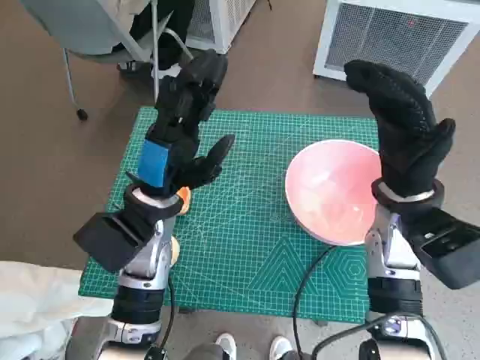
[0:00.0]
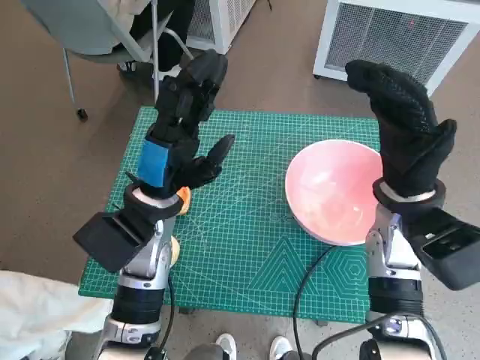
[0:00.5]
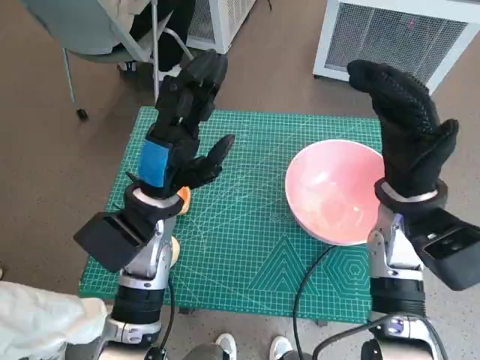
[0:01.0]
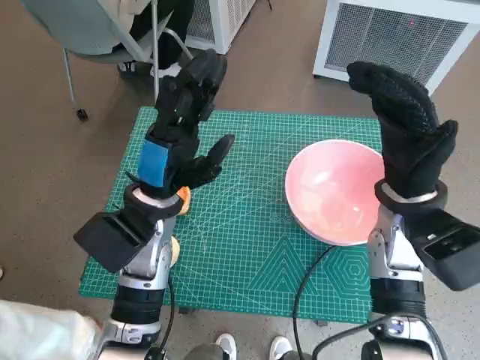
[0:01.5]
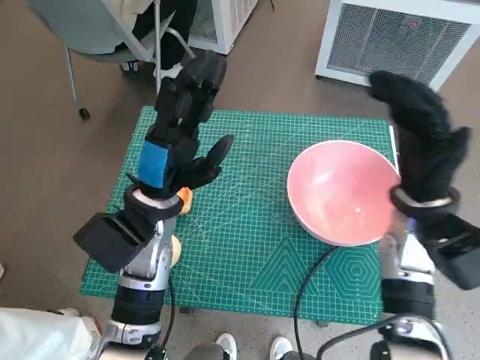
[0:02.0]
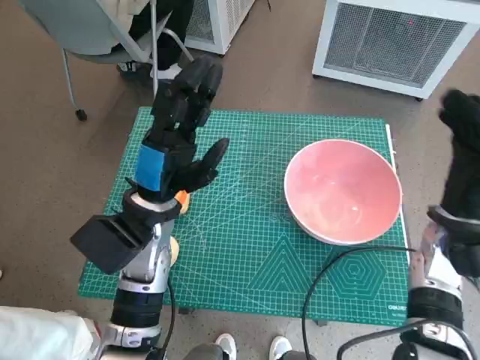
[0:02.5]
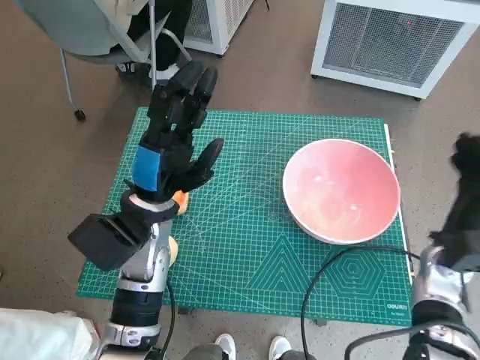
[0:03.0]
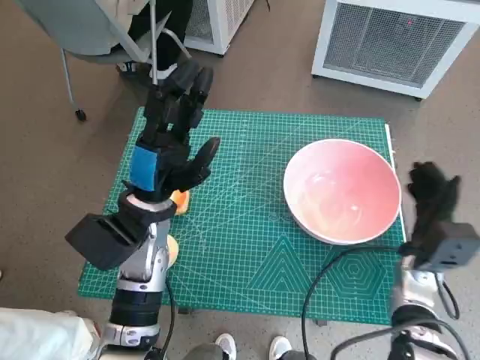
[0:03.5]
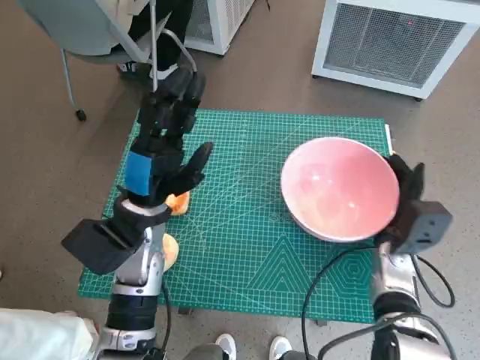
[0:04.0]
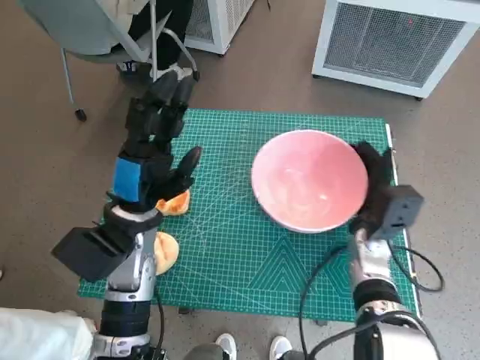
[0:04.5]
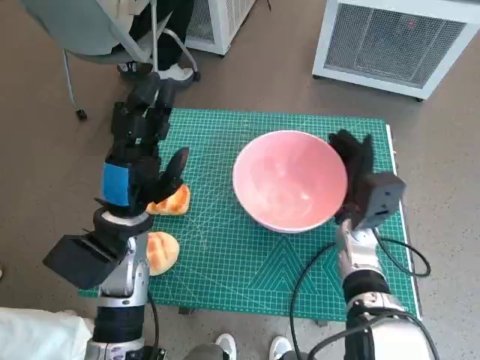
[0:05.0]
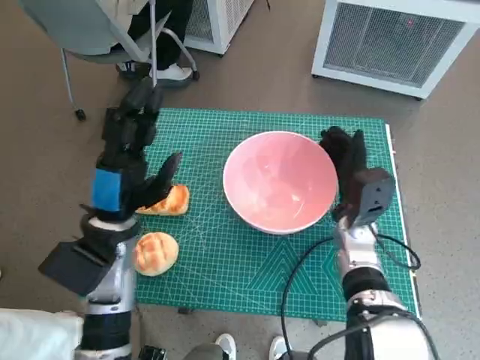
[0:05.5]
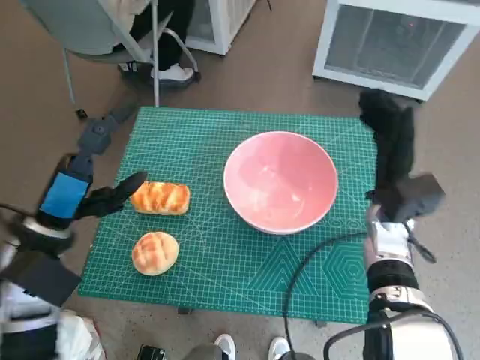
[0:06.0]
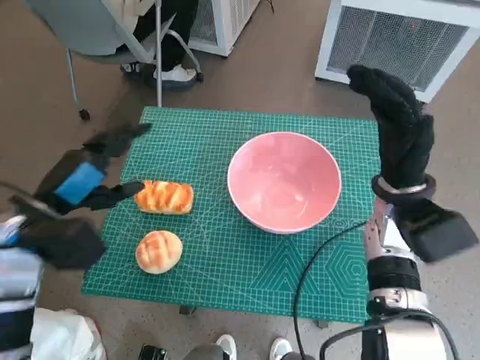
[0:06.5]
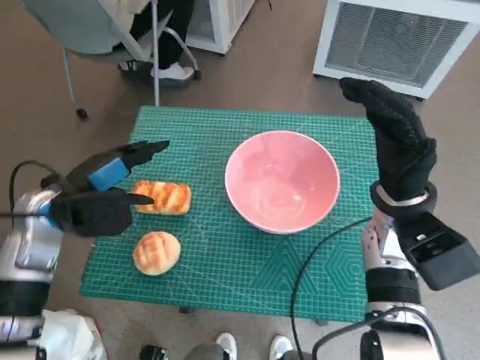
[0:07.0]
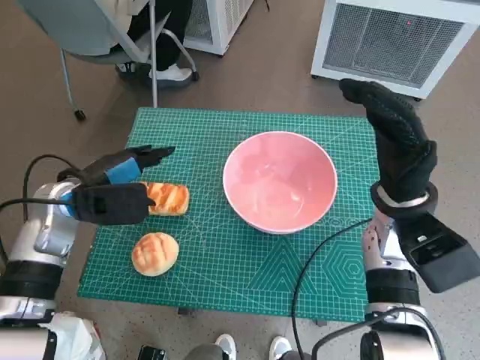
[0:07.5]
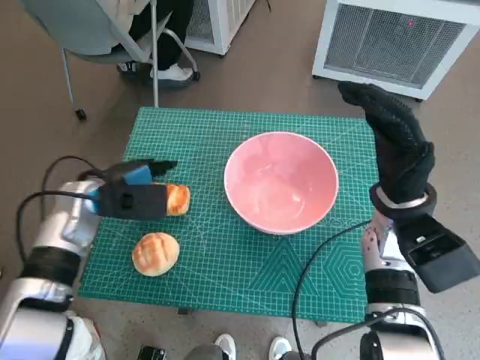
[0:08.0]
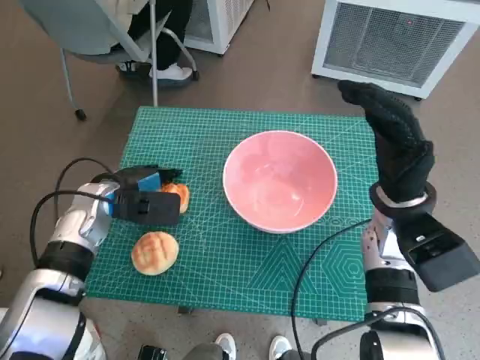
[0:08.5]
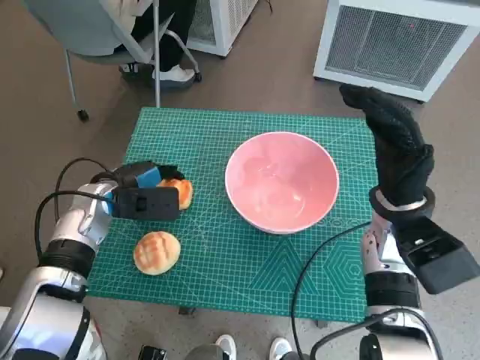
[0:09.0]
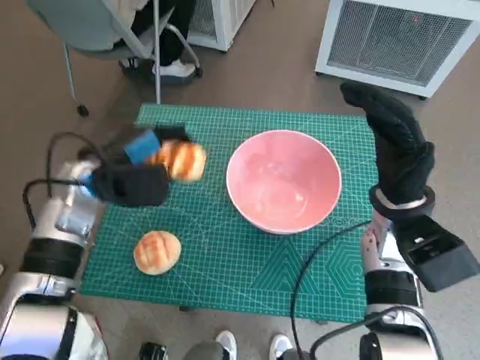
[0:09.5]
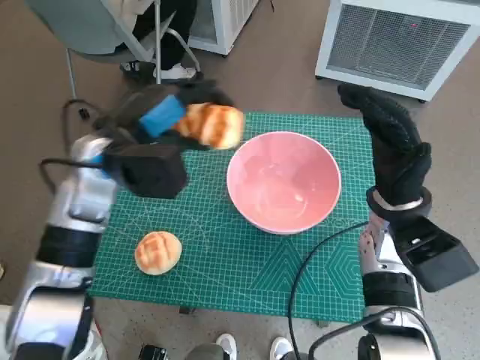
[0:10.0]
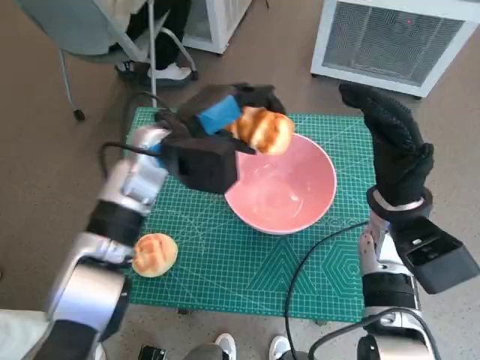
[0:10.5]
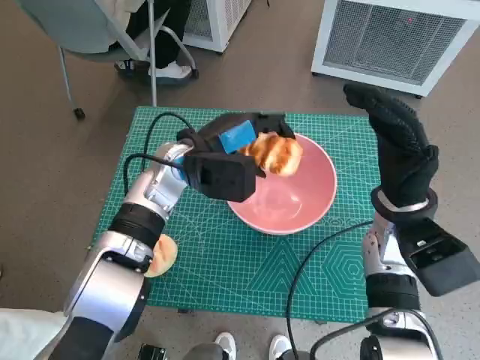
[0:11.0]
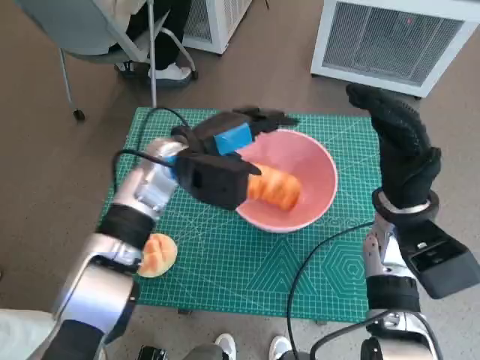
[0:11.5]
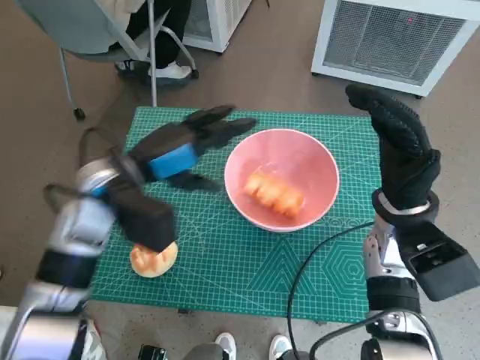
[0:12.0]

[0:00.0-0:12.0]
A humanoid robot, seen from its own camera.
Task of the whole recording: Push the bowl to the center of the table and put the bread into the bowl.
Step, 0:00.0 to 0:05.5: Move the pink bowl to the center of table with right hand.
Step, 0:06.0 to 0:08.5: Grasp the long bread with left hand.
Step, 0:09.0 to 0:11.5: Place the long bread in pink bowl with left hand.
0:02.0 to 0:04.0: The right hand shifts roughly 15 cm downward.
0:04.0 to 0:06.0: The right hand shifts approximately 5 cm upward; the left hand goes about 10 cm to the left.
0:06.0 to 0:08.0: The right hand goes some 5 cm upward. The left hand travels forward by roughly 10 cm.
0:08.0 to 0:10.0: The left hand heads upward and to the right, covering some 10 cm.
0:10.0 to 0:12.0: The left hand reaches some 10 cm to the right, then returns.

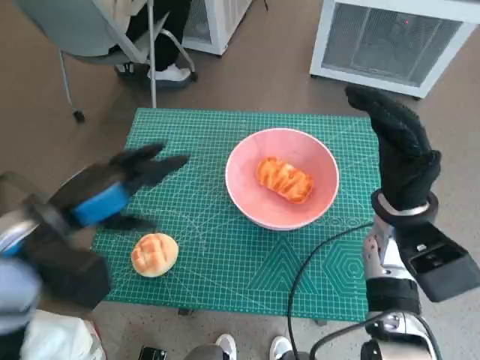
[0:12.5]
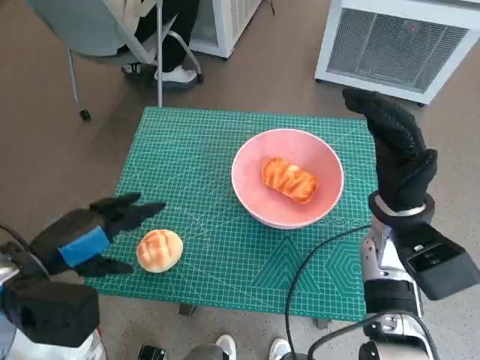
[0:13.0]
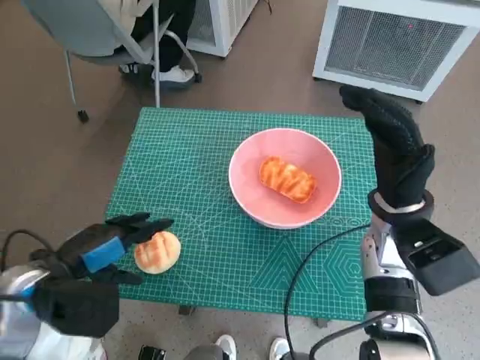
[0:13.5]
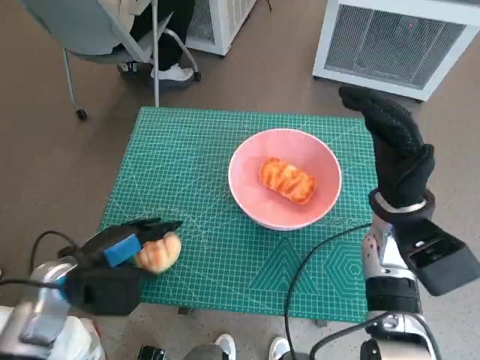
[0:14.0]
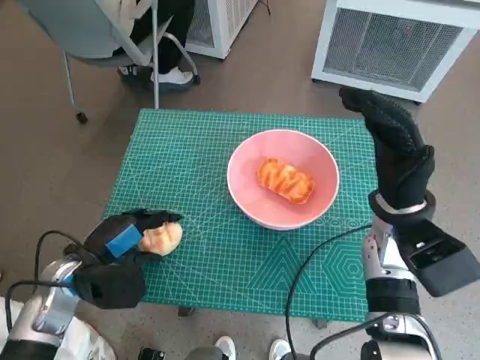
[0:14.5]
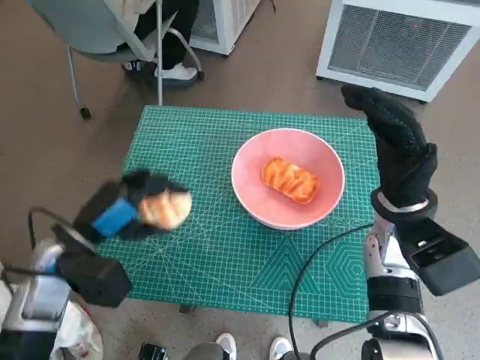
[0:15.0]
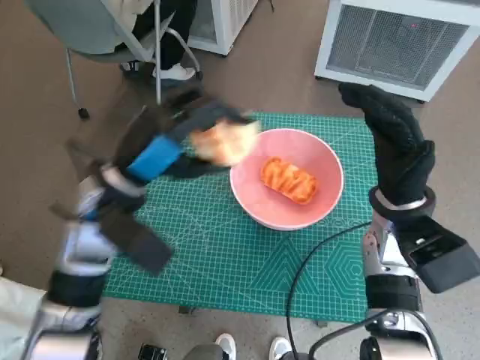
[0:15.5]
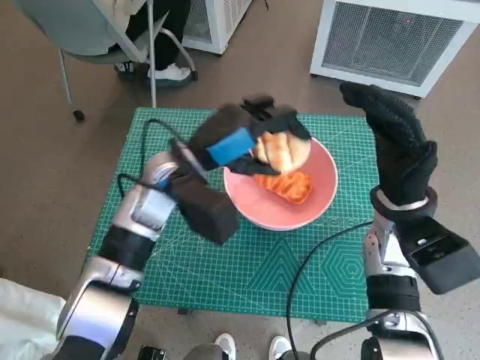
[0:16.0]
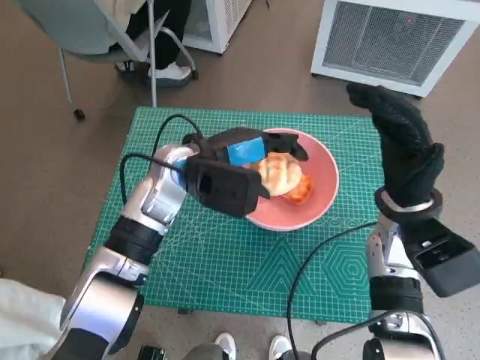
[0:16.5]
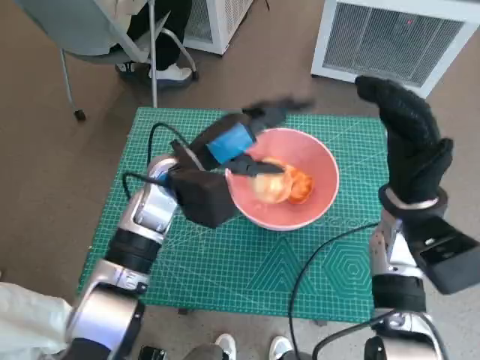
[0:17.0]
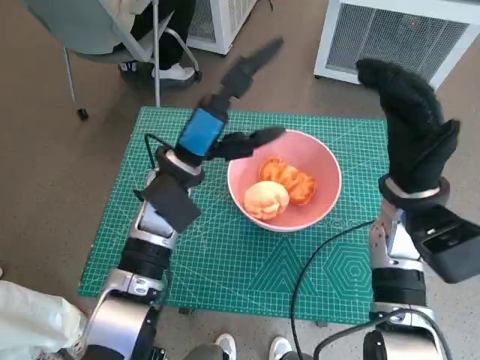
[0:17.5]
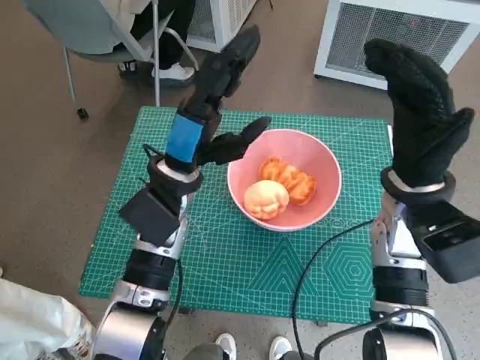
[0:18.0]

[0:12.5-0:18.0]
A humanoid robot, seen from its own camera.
Task of the whole recording: Push the bowl to the center of the table and put the bread into the bowl.
Step, 0:12.5 to 0:14.0: Grasp the round bread with left hand.
Step, 0:14.5 to 0:17.0: Place the round bread in pink bowl with left hand.
0:12.5 to 0:14.5: The left hand goes about 10 cm downward.
0:14.5 to 0:16.0: The left hand goes some 20 cm to the right, upward and forward.

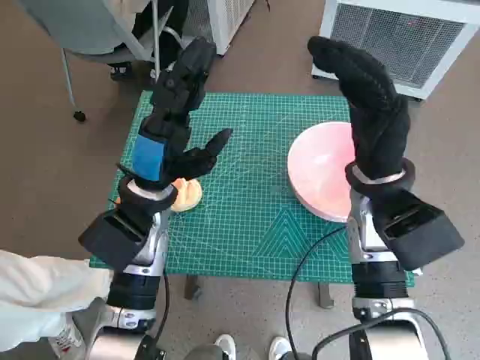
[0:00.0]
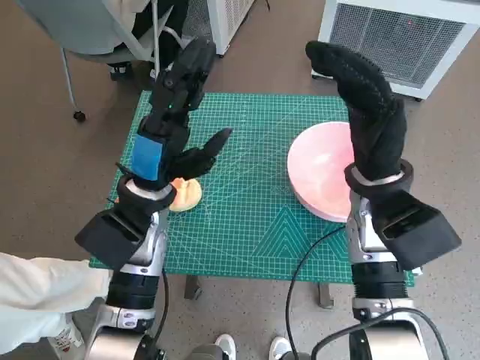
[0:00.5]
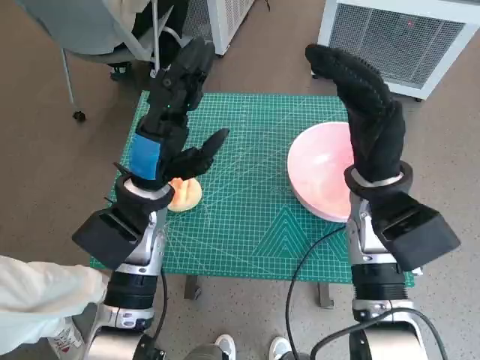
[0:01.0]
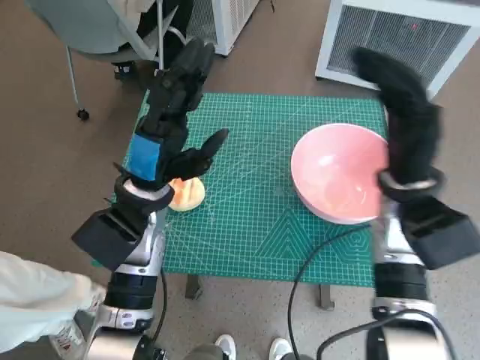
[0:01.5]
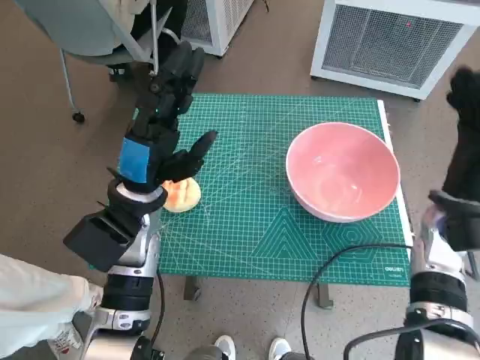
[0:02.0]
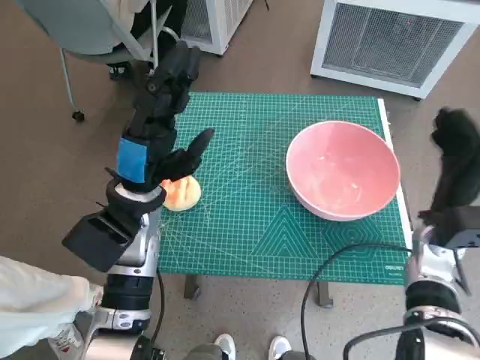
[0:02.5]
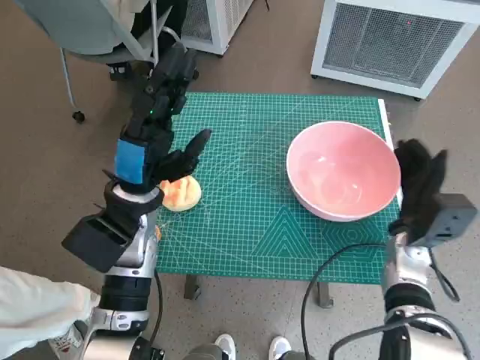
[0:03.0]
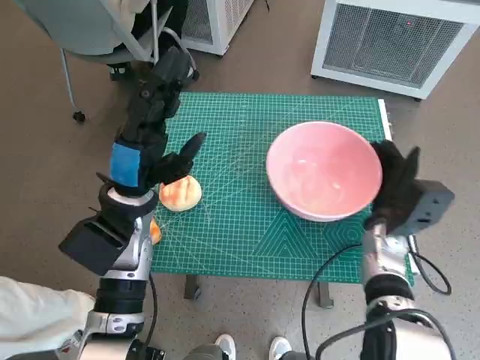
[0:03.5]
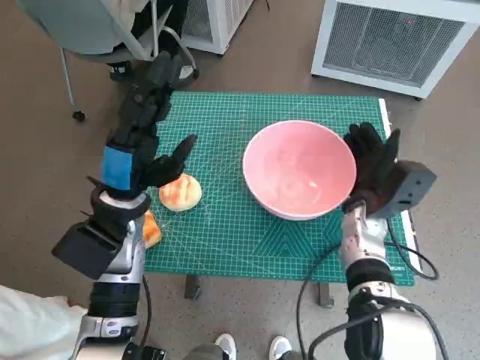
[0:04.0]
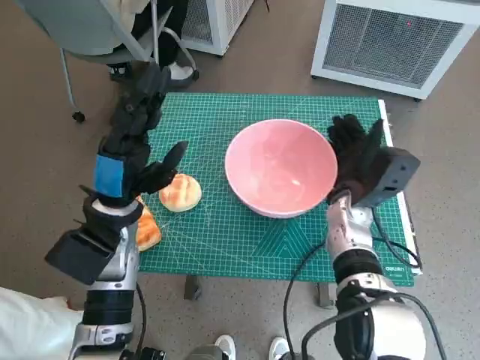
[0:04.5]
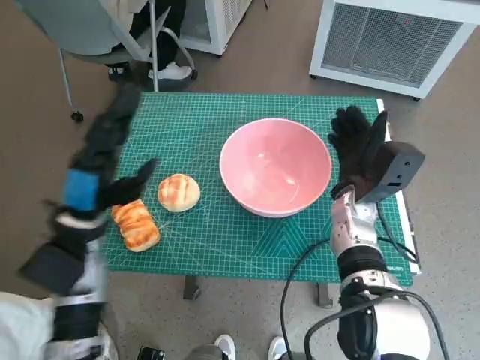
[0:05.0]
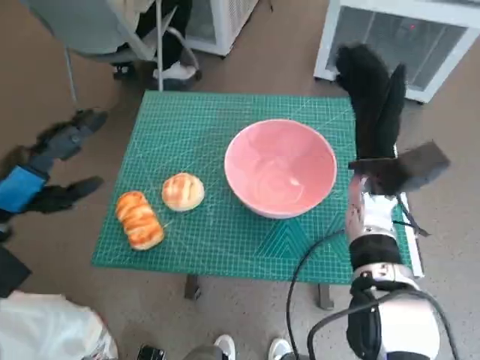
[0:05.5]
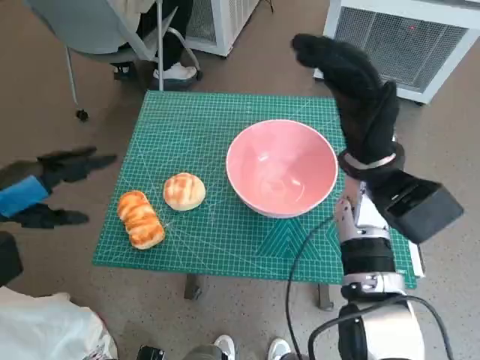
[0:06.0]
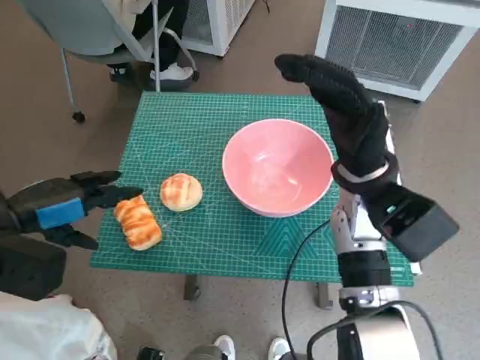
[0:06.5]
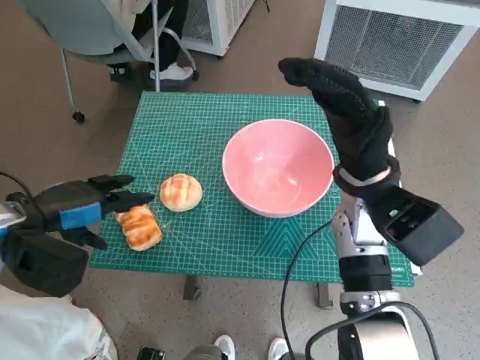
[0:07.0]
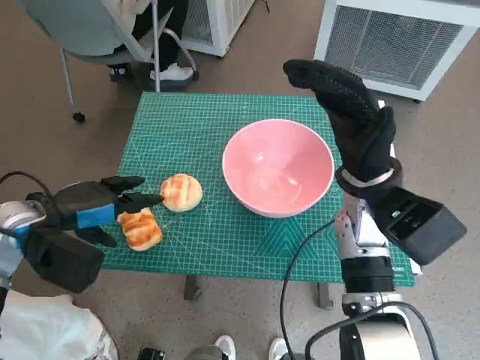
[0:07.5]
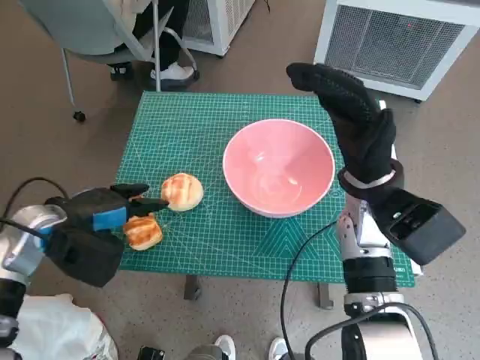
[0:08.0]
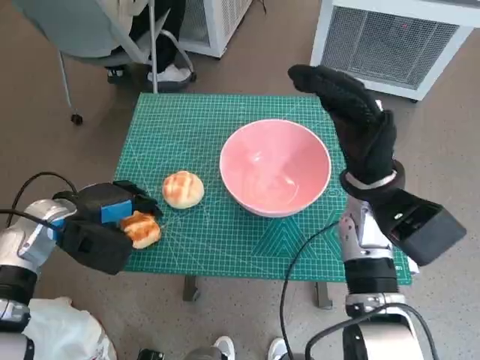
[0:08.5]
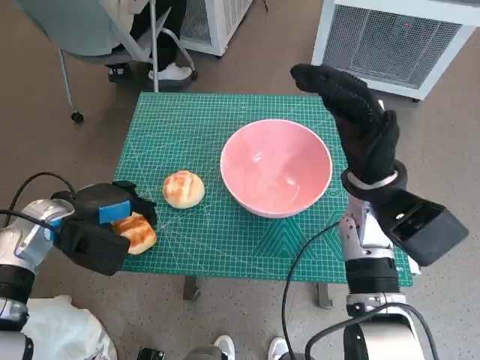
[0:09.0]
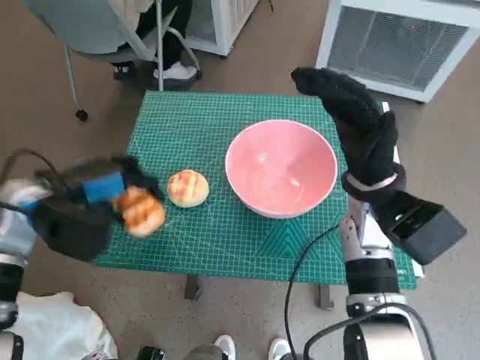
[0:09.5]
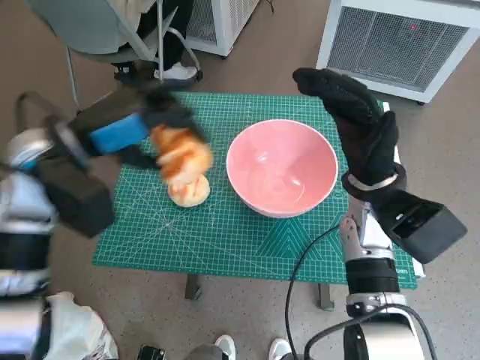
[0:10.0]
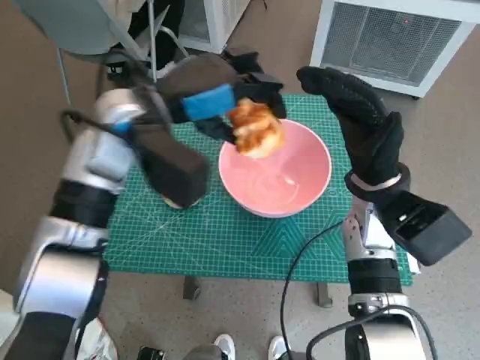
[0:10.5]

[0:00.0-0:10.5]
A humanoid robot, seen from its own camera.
Task of the whole recording: Push the bowl to the center of the table and put the bread into the bowl.
Step, 0:00.0 to 0:05.0: Move the pink bowl to the center of table with right hand.
Step, 0:05.5 to 0:09.0: Grasp the long bread with left hand.
0:02.0 to 0:04.0: The right hand shifts some 10 cm to the left and downward.
0:04.0 to 0:06.5: The right hand shifts some 10 cm upward. The left hand travels to the left by roughly 15 cm.
0:06.5 to 0:08.5: The left hand is displaced downward by approximately 5 cm.
0:08.5 to 0:10.5: The left hand travels to the right and upward by roughly 20 cm.
